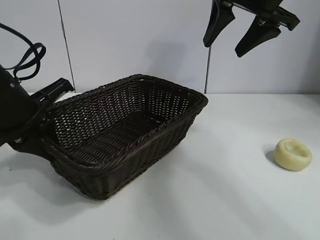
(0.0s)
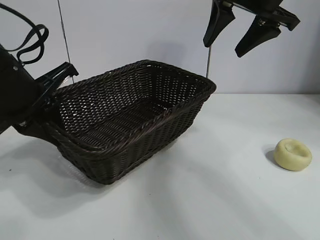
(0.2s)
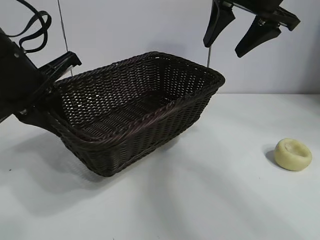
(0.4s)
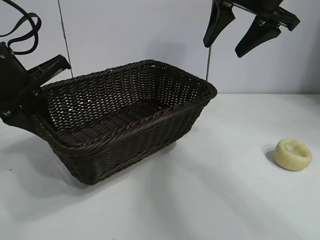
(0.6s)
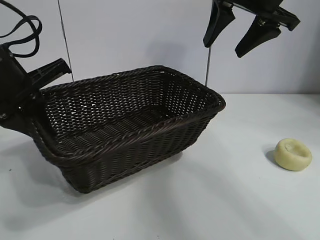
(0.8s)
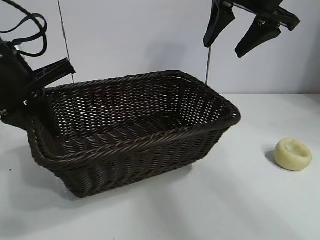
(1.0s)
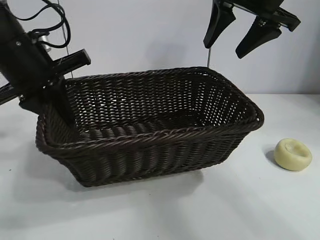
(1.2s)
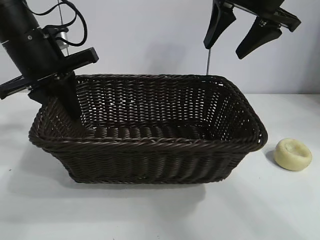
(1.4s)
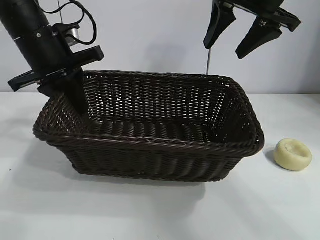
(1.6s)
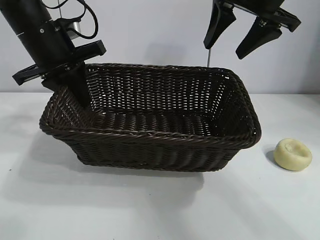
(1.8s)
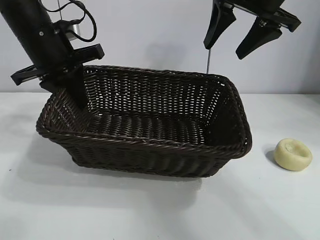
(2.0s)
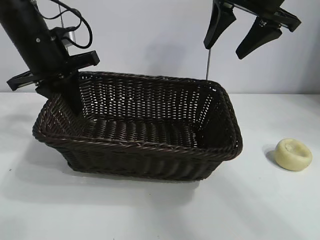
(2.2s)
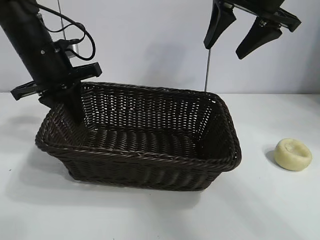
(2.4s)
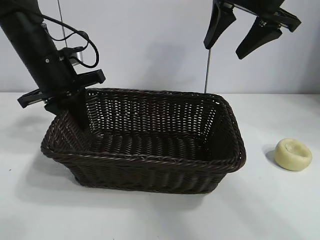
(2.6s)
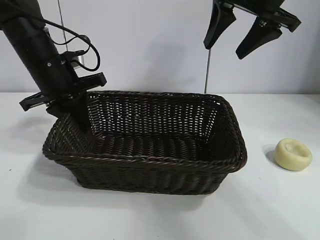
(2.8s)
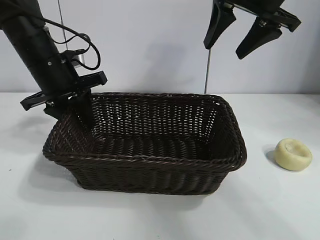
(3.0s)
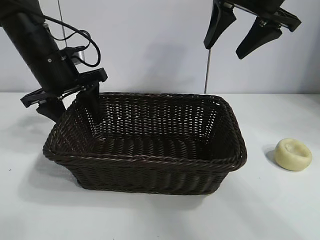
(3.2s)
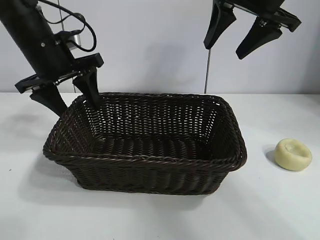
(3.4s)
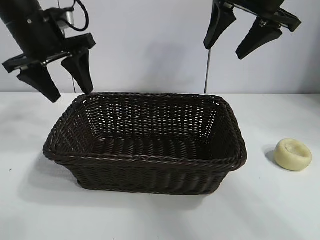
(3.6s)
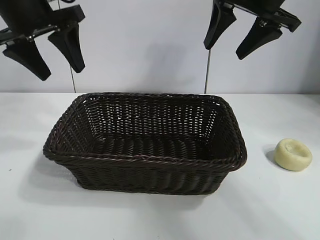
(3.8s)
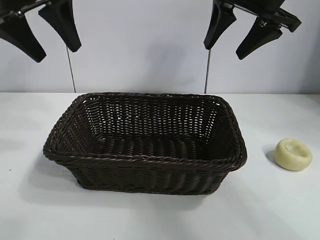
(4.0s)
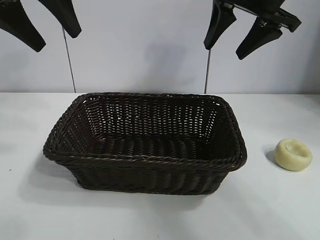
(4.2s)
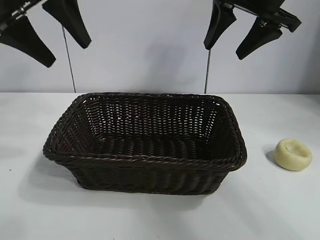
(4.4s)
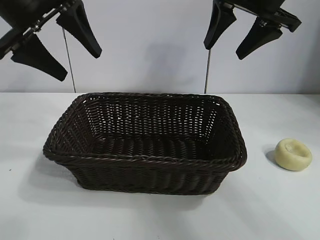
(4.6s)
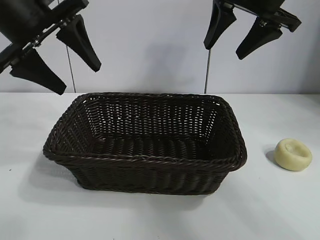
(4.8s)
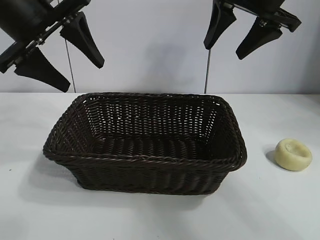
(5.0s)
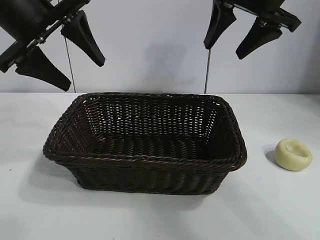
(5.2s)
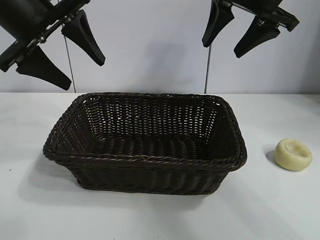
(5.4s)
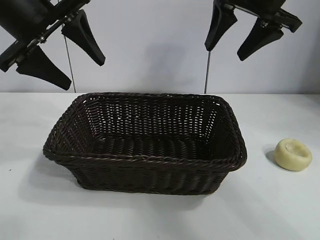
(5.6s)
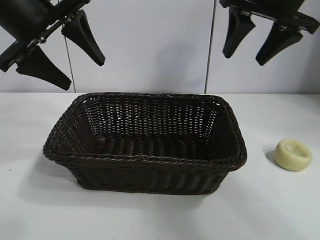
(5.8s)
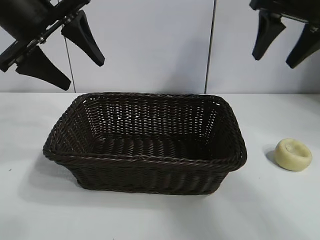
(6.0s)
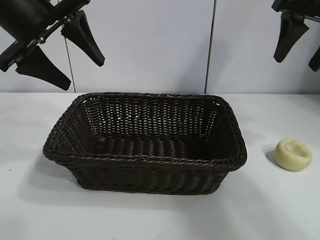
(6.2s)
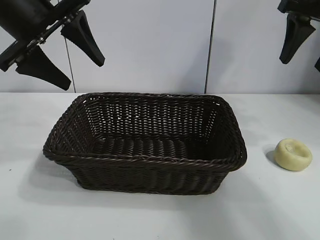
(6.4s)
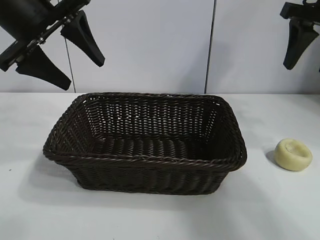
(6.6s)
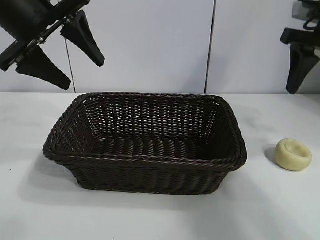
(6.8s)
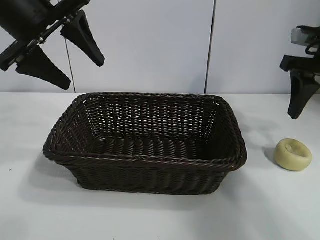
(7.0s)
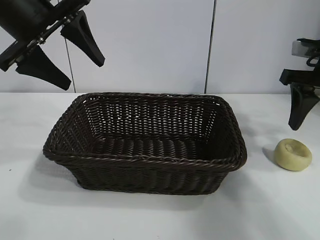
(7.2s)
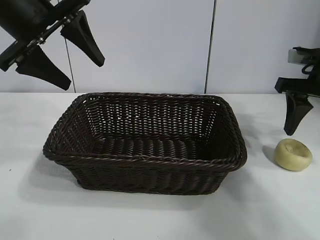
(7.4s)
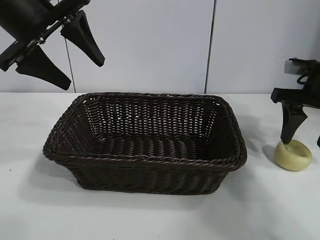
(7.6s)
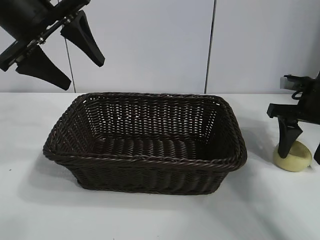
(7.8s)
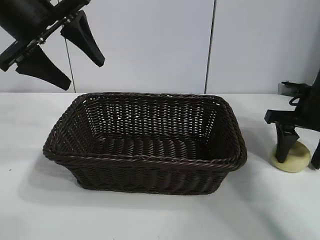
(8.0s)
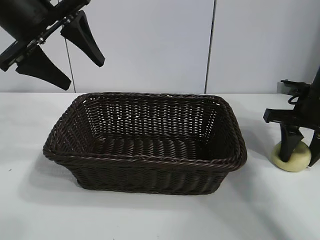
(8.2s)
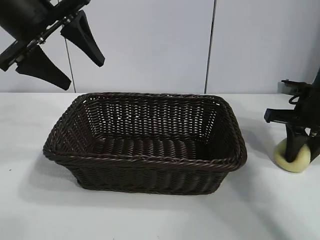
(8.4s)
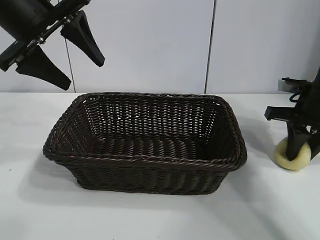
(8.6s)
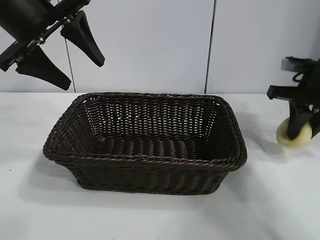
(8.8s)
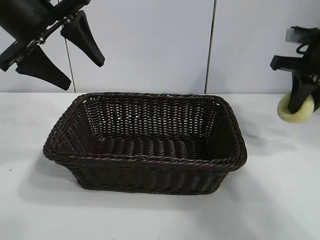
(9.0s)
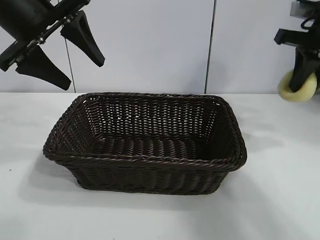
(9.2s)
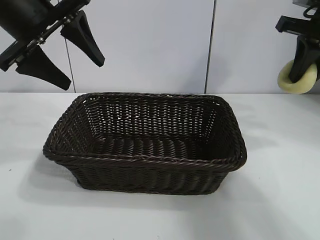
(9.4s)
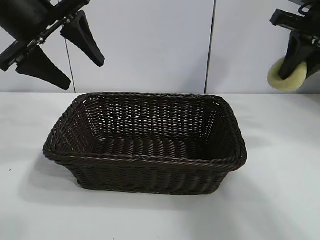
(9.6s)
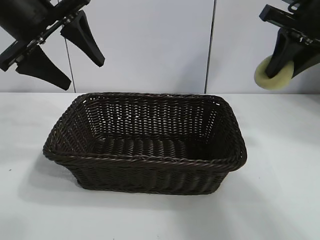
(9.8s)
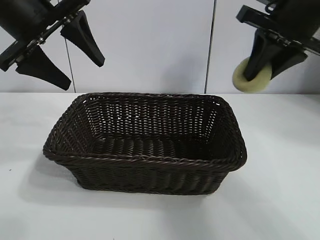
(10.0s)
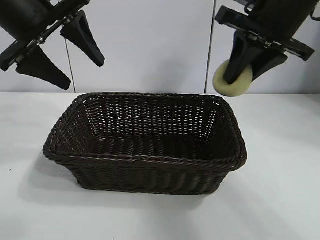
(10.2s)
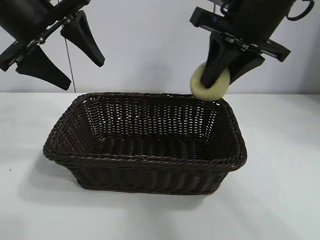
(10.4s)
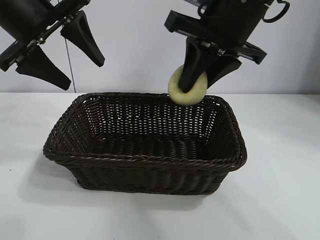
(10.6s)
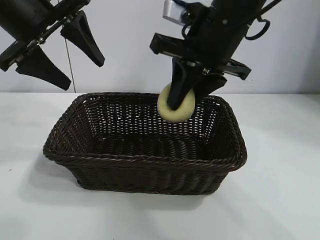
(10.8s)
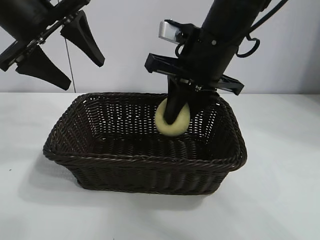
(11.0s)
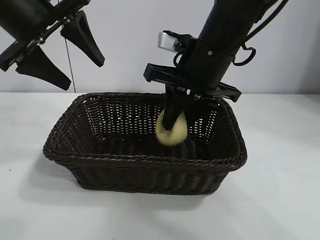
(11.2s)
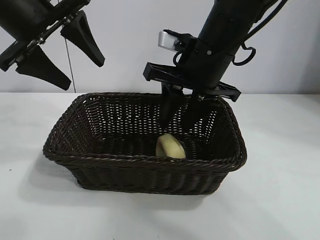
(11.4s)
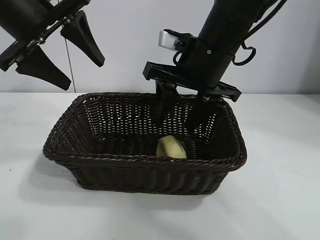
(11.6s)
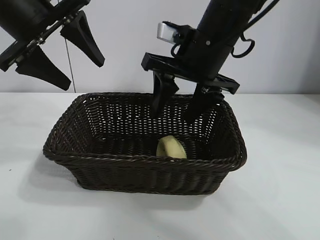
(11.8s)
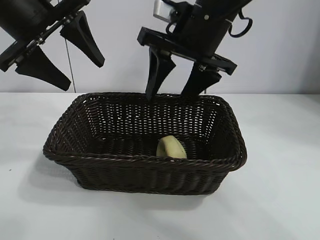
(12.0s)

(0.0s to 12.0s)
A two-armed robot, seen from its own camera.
Task of the whole recording: pick up the egg yolk pastry and put it into the basket.
Step, 0.0s - 3.0s: Place the basket in the center of view with left gripper.
Step, 3.2s - 8.4s: Grasp egg yolk pastry with right gripper.
Step, 8.6s - 11.4s: Place the egg yolk pastry in the basket with right gripper.
